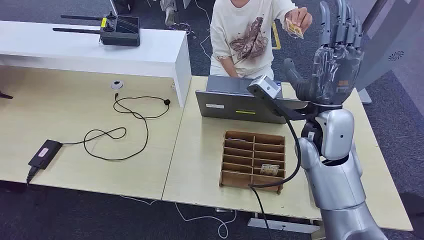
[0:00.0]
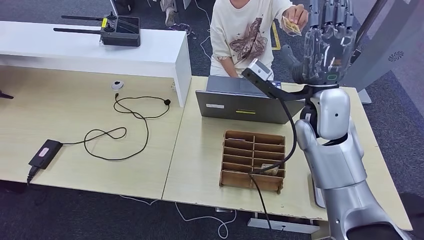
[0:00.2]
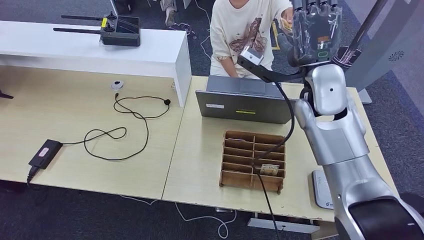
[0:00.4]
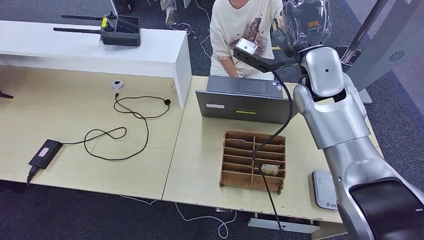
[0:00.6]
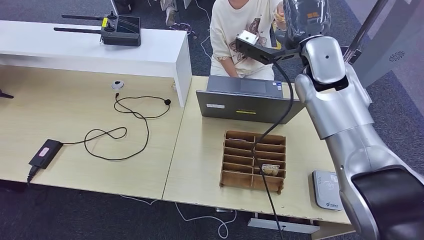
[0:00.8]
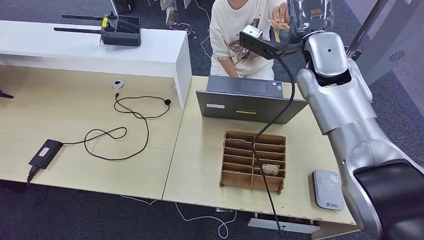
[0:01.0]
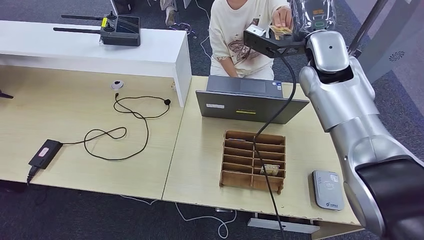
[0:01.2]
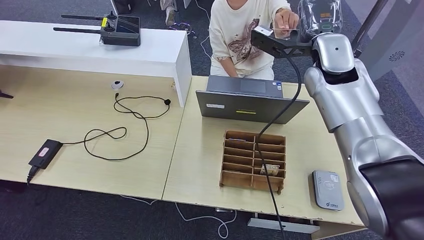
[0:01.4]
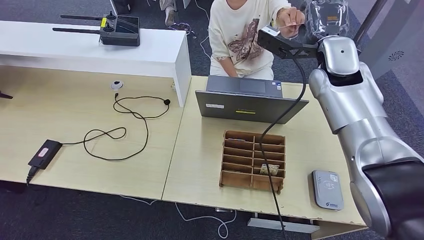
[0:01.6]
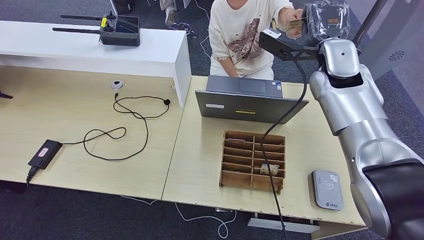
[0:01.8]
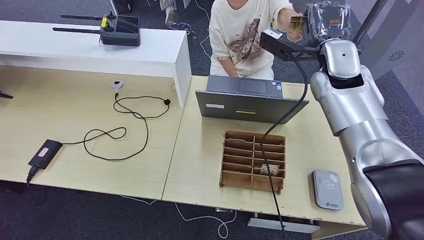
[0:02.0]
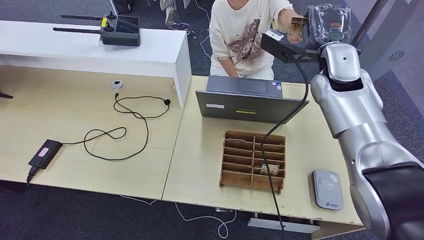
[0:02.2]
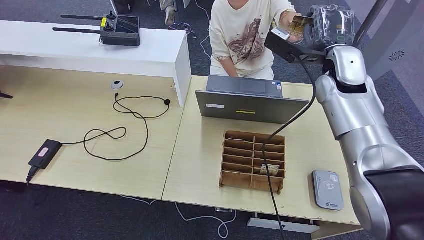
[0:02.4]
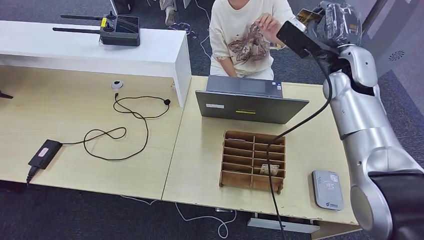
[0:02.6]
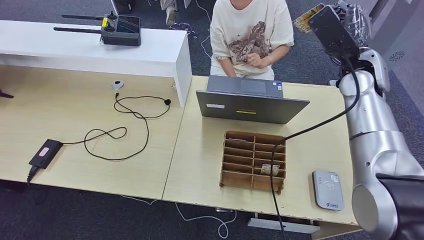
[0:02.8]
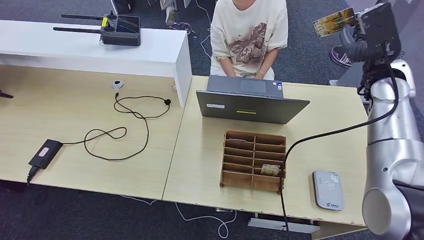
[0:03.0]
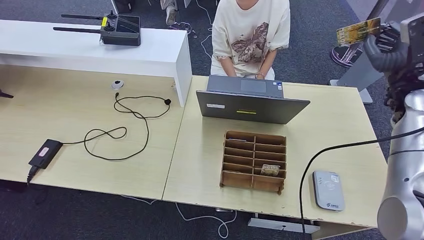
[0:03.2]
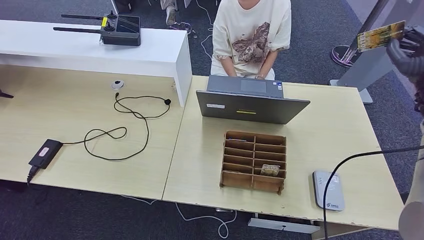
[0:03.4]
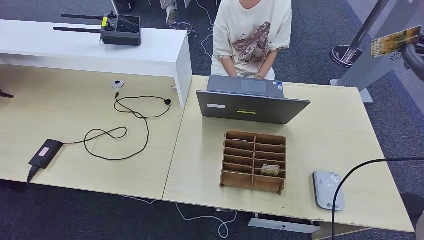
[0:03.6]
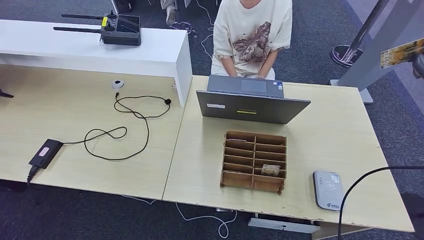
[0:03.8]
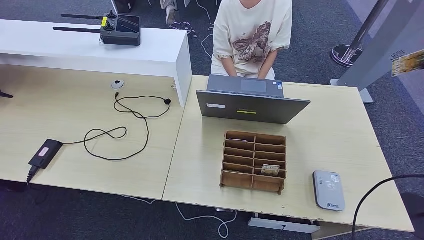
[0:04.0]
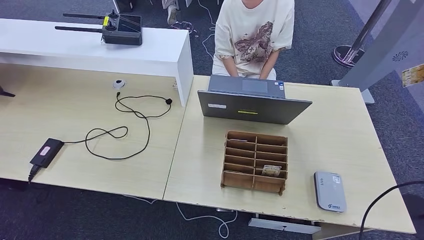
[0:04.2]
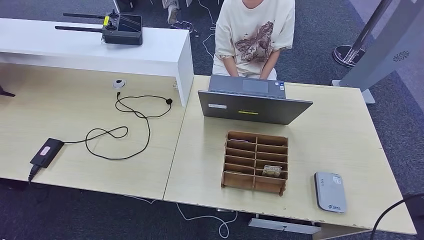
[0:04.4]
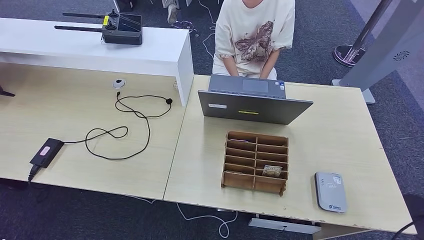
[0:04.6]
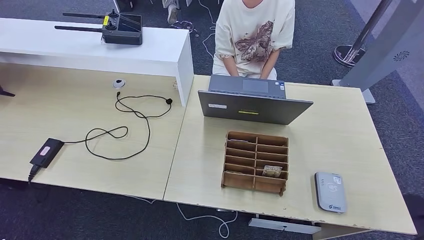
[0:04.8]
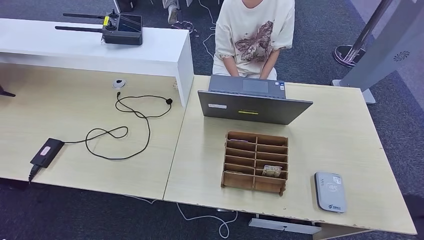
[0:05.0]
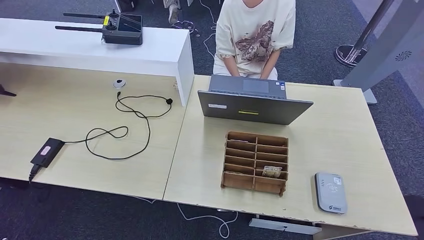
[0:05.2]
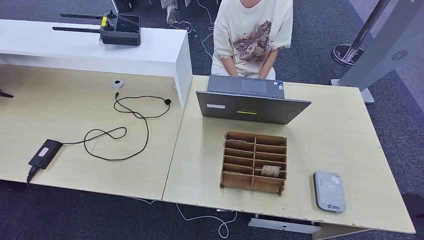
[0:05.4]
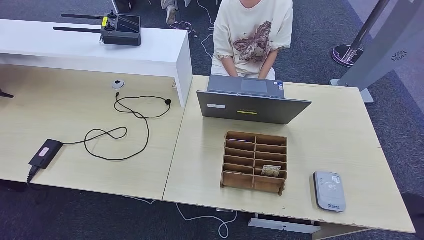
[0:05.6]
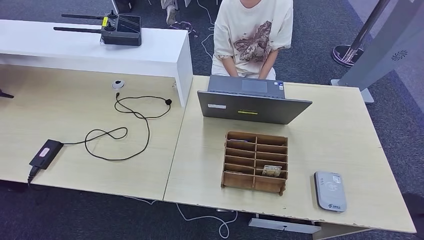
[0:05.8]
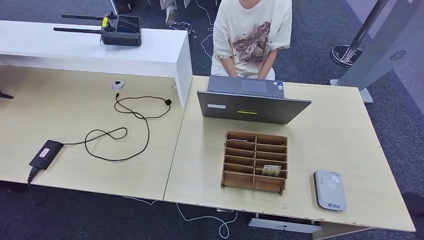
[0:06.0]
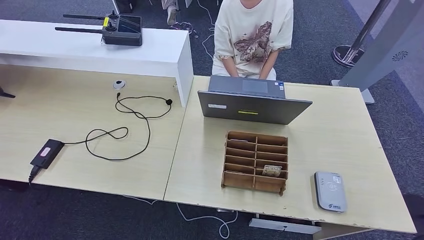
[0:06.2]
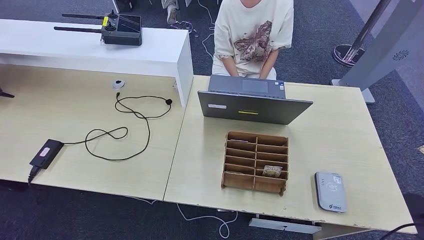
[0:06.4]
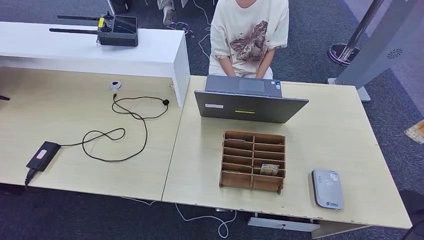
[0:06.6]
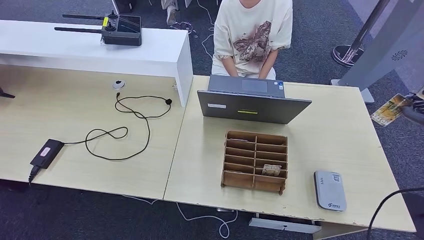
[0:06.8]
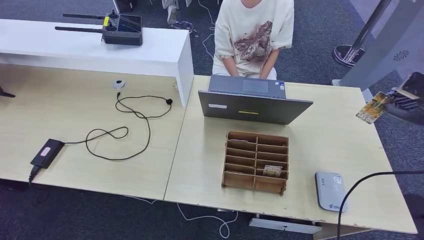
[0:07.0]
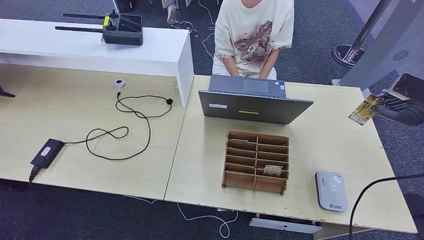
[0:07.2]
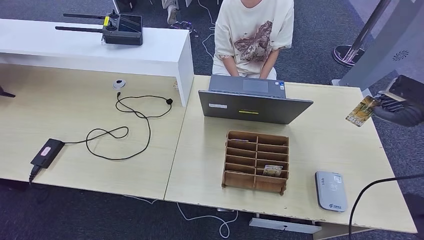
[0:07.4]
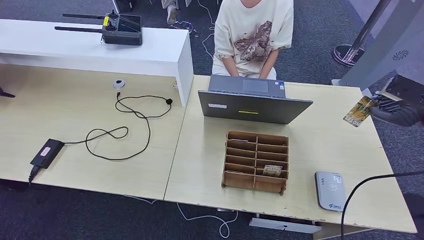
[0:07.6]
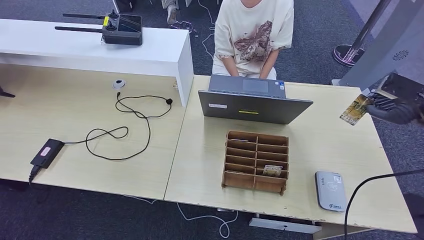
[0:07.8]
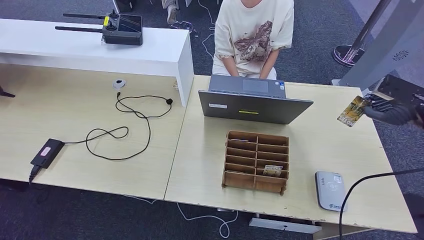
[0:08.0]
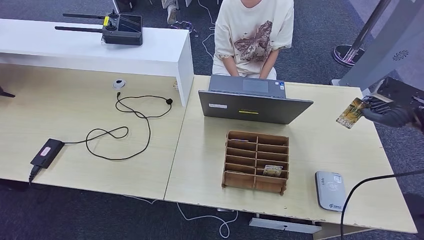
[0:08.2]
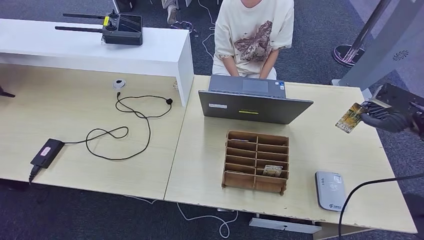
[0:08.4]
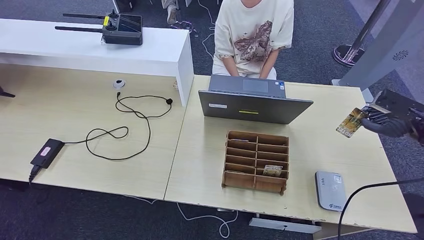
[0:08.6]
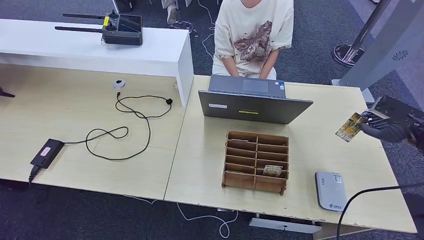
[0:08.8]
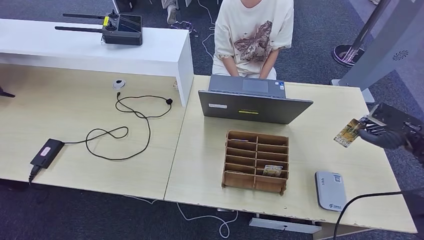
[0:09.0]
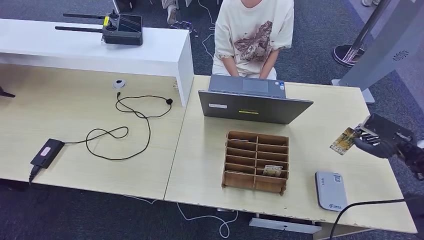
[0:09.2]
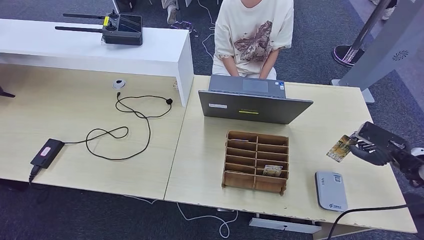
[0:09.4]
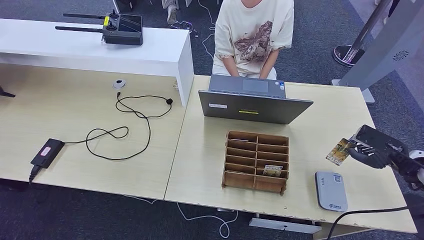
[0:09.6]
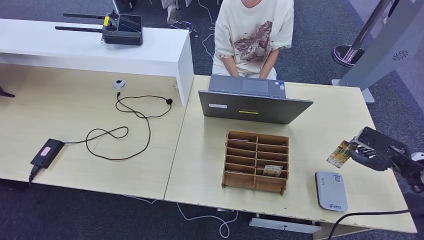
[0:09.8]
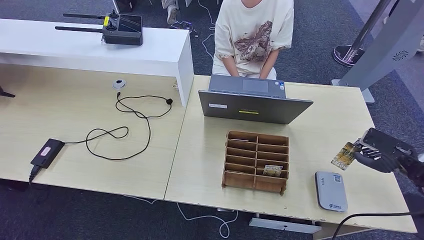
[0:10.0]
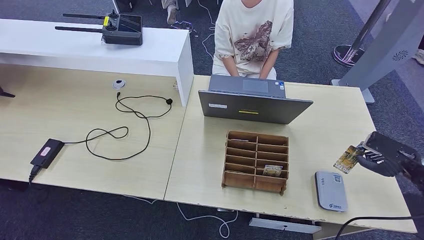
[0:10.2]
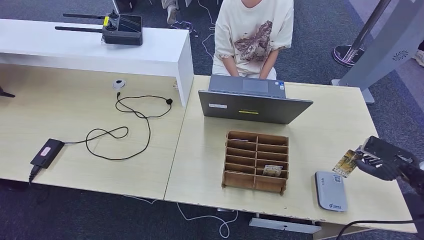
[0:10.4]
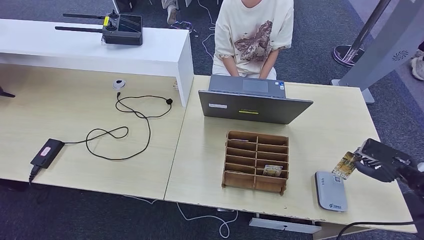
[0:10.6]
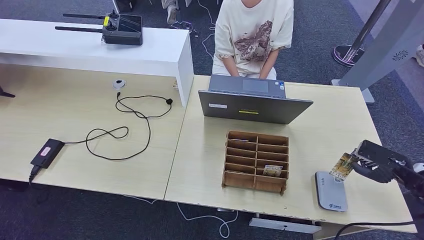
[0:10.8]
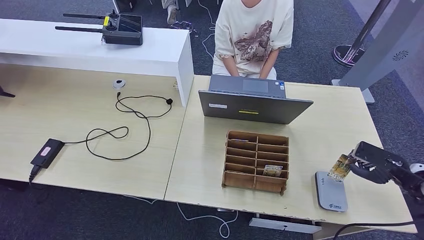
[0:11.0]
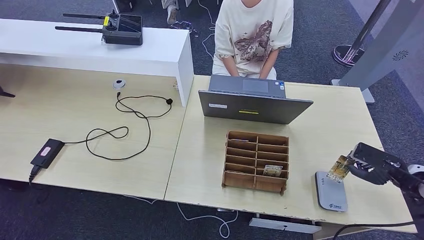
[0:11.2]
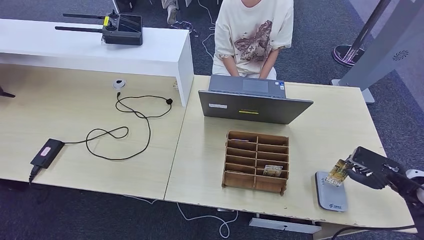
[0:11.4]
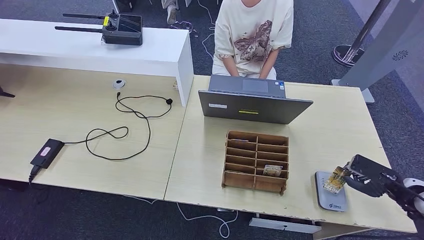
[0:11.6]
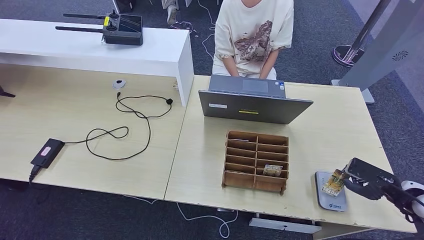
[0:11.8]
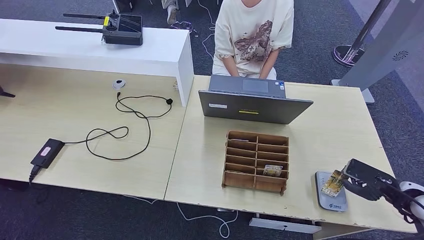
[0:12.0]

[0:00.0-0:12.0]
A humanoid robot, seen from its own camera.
Step, 0:00.0 to 0:03.8: Take the ID card from the person's hand.
0:04.4 to 0:06.0: The right hand goes some 15 cm backward.
0:06.0 to 0:07.6: The right hand is displaced forward by some 20 cm.
0:07.6 to 0:09.0: The right hand heads downward, covering about 5 cm.
0:09.0 to 0:10.4: The right hand shifts by some 5 cm.
0:10.4 to 0:12.0: The right hand shifts by some 5 cm.

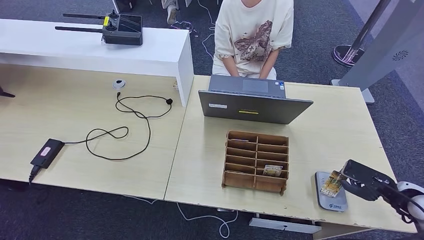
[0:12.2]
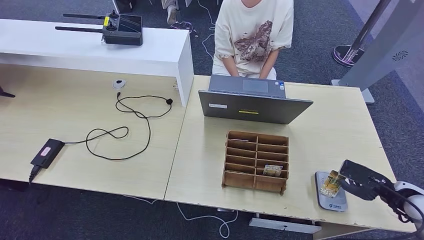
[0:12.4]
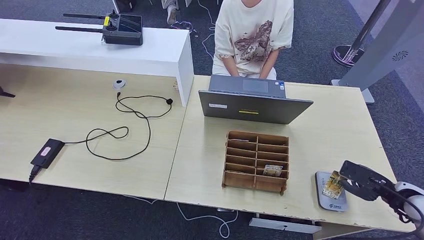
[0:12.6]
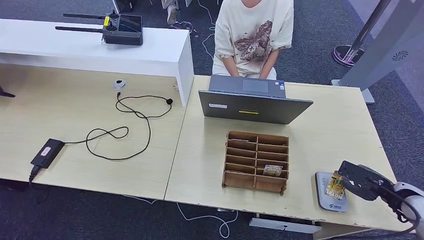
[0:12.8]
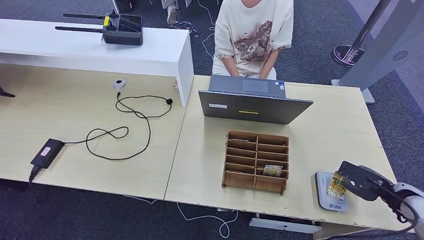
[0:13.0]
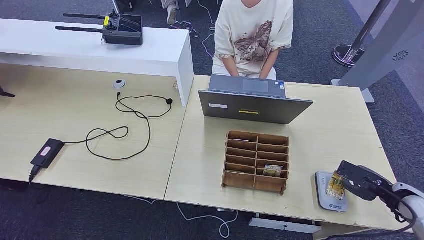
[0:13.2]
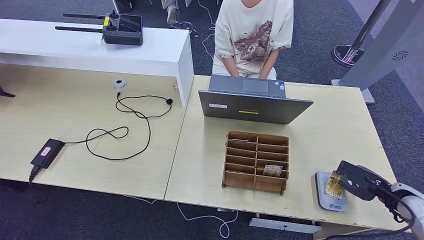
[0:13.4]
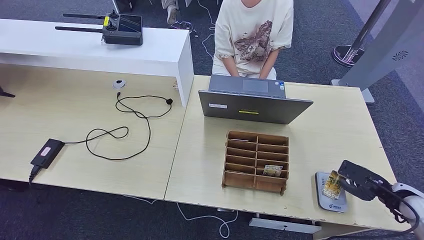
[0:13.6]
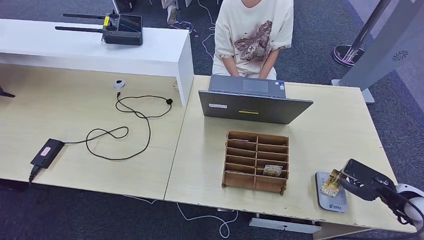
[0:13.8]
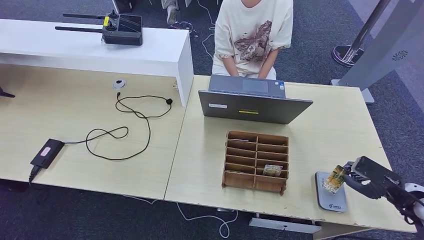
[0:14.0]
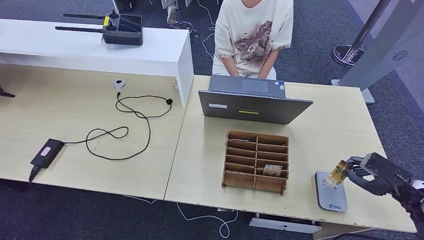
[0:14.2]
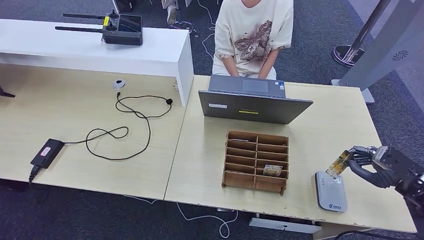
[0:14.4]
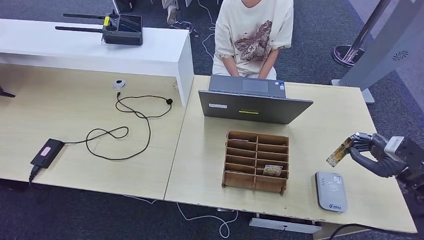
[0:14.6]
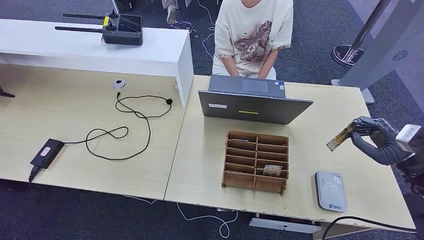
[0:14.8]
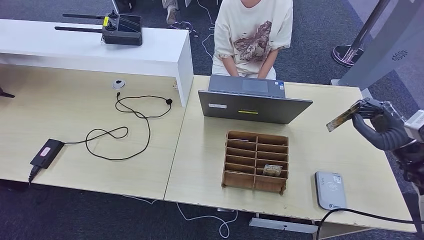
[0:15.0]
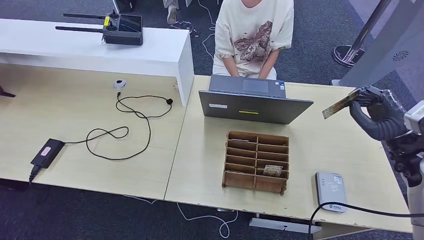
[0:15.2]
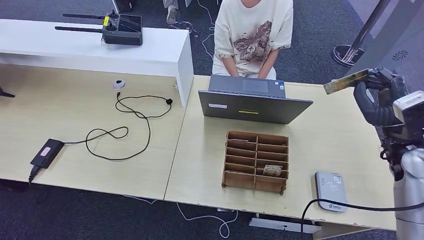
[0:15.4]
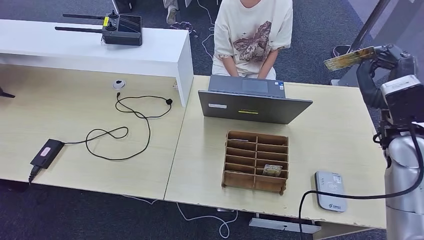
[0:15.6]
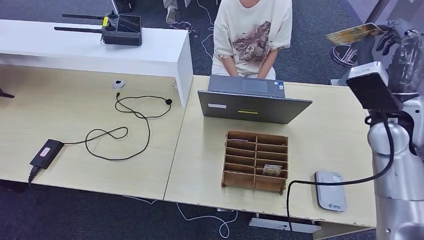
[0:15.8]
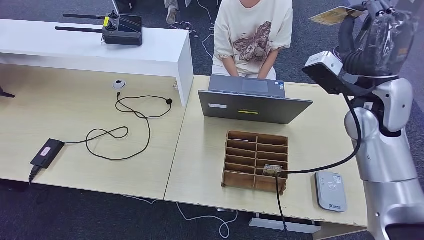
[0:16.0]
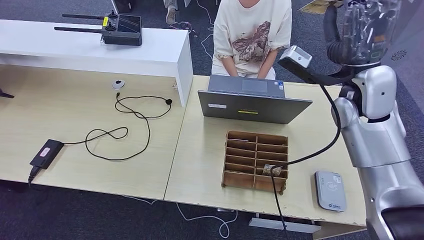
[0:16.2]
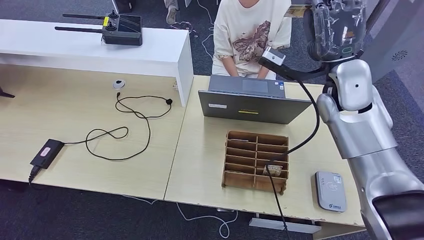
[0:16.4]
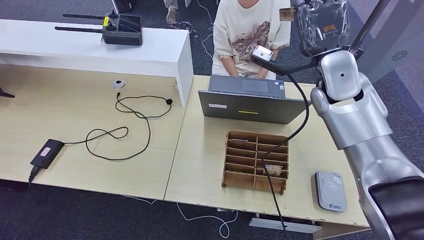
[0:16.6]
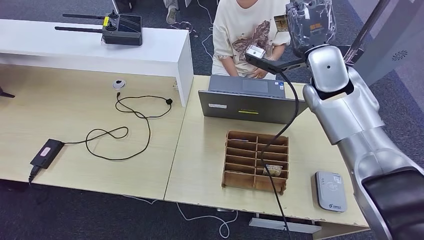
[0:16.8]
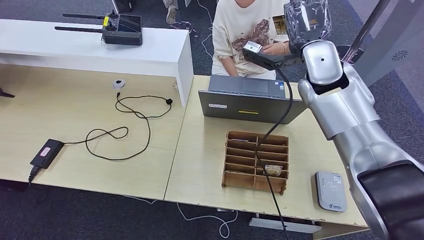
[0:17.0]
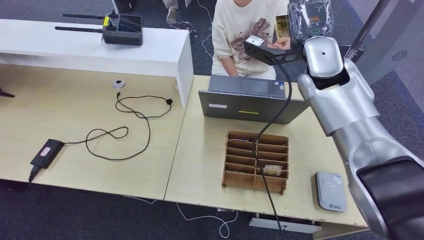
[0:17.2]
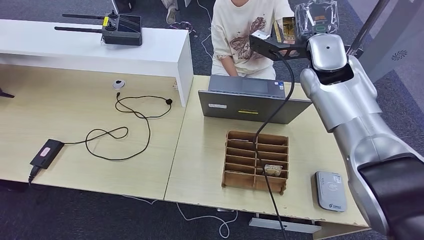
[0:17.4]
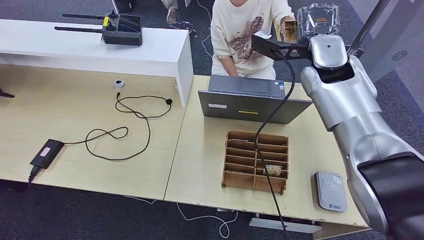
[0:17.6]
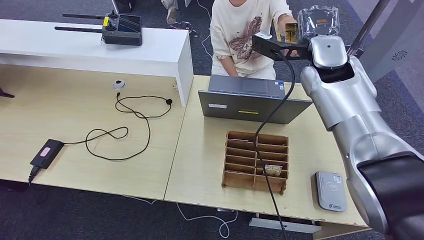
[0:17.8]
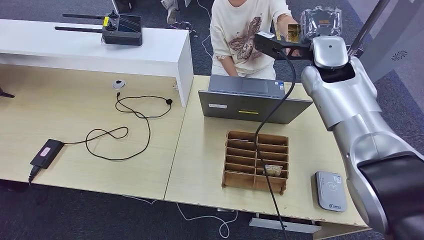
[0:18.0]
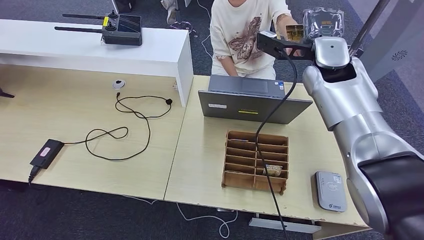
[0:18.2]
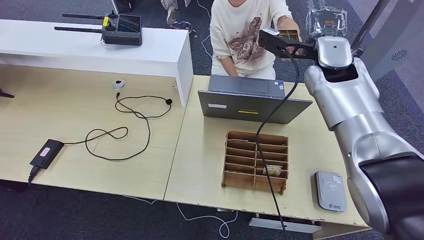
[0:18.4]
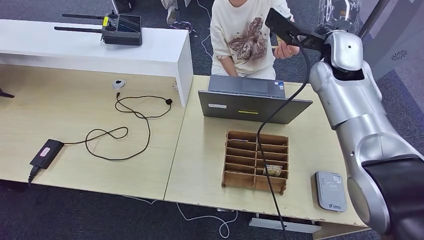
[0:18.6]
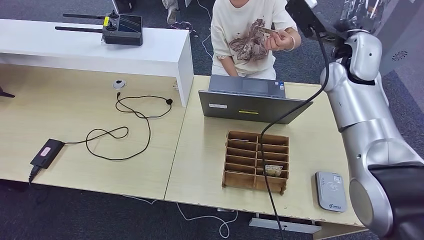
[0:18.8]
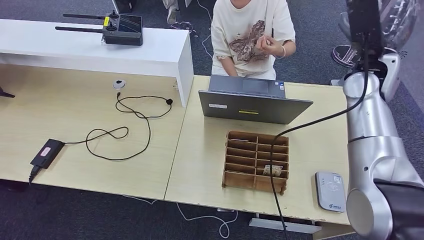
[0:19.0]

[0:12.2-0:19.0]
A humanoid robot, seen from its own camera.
Step, 0:12.2 to 0:15.2: Place the ID card on the card reader.
0:12.2 to 0:13.6: The hands make only small movements.
0:13.6 to 0:15.0: The right hand travels upward, forward and to the left by some 15 cm.
0:15.0 to 0:16.2: The right hand heads to the left, forward and upward, covering about 25 cm.
0:16.2 to 0:17.6: The right hand shifts about 5 cm to the left.
0:17.6 to 0:19.0: The right hand moves to the right, roughly 5 cm.
